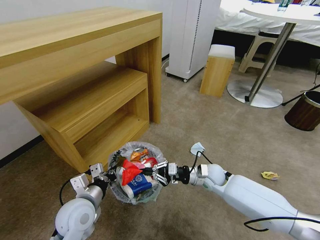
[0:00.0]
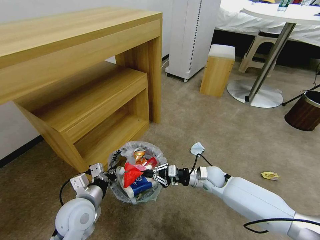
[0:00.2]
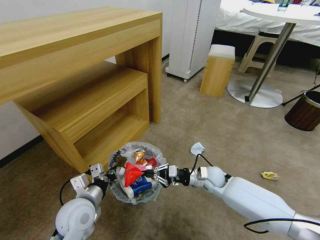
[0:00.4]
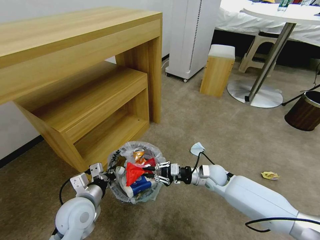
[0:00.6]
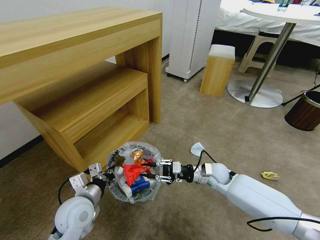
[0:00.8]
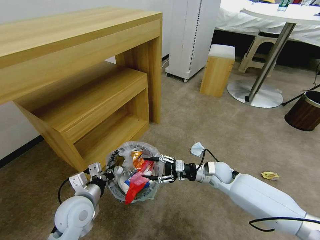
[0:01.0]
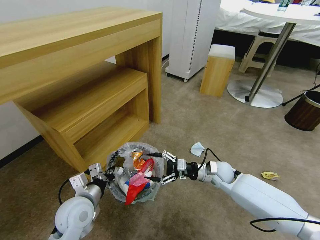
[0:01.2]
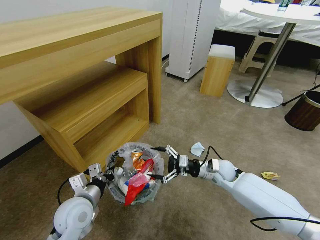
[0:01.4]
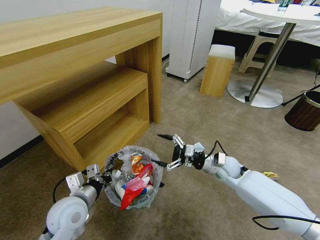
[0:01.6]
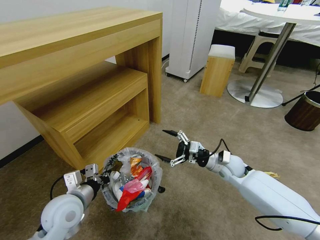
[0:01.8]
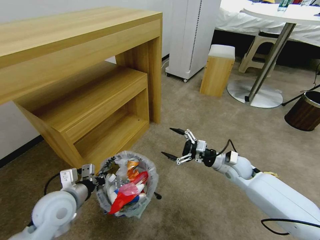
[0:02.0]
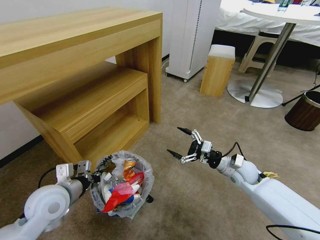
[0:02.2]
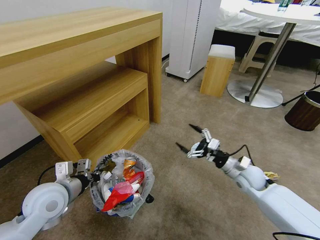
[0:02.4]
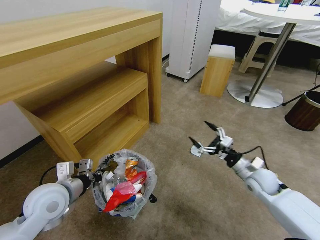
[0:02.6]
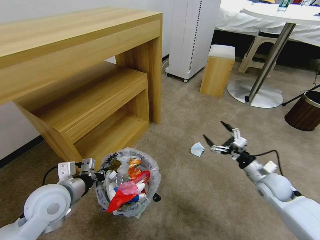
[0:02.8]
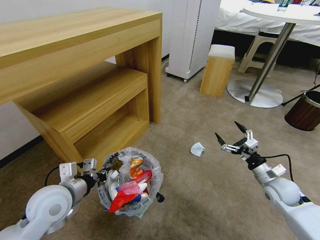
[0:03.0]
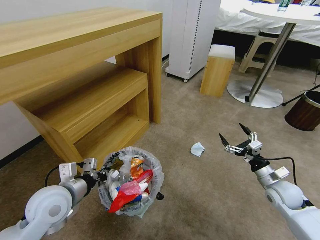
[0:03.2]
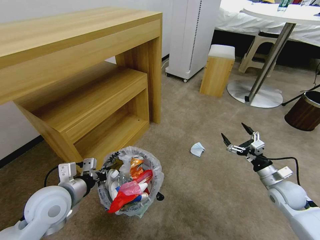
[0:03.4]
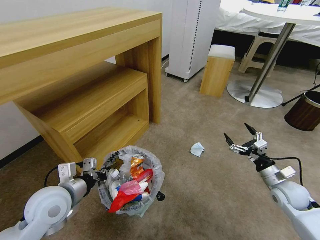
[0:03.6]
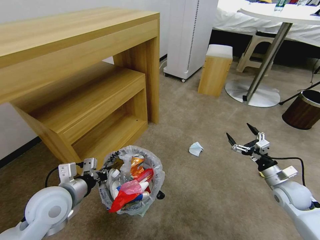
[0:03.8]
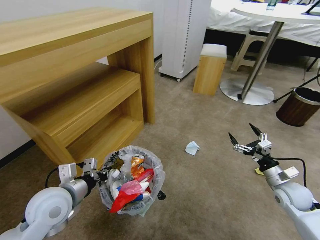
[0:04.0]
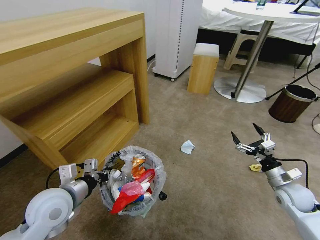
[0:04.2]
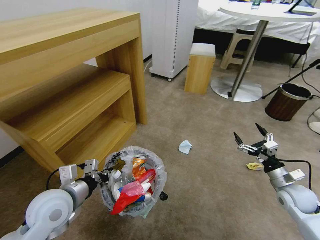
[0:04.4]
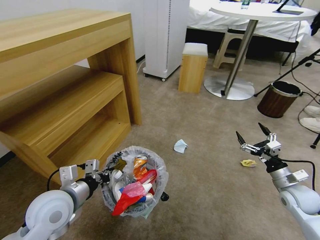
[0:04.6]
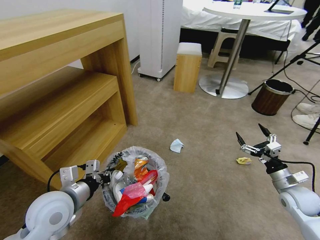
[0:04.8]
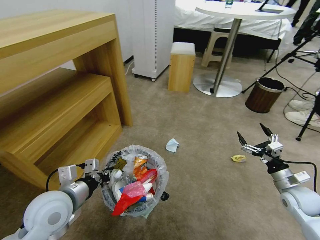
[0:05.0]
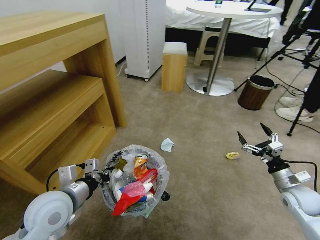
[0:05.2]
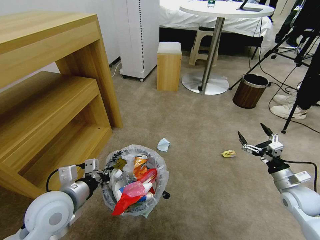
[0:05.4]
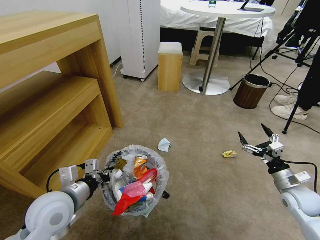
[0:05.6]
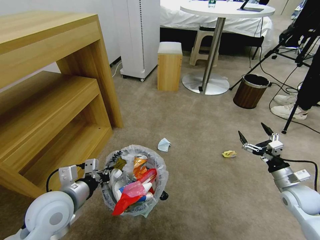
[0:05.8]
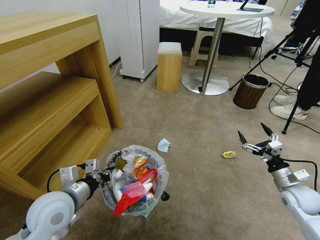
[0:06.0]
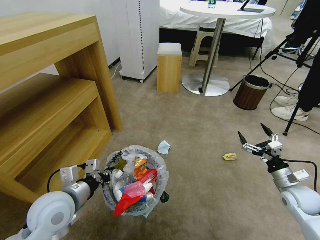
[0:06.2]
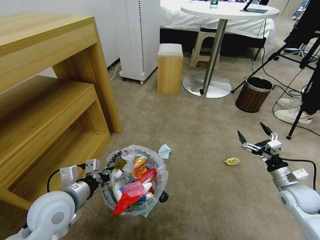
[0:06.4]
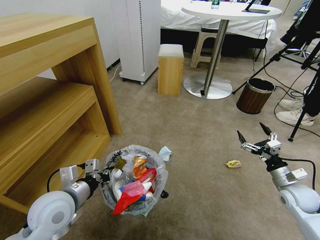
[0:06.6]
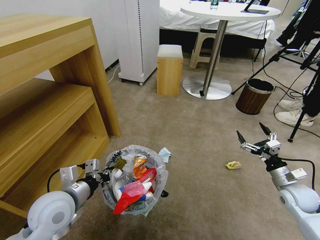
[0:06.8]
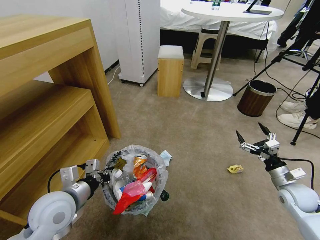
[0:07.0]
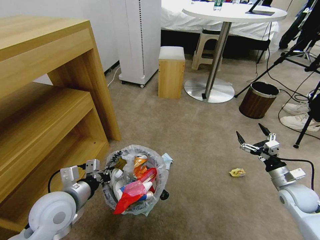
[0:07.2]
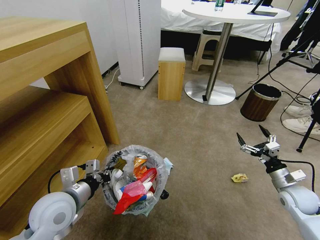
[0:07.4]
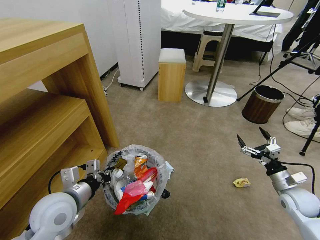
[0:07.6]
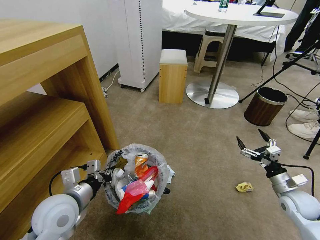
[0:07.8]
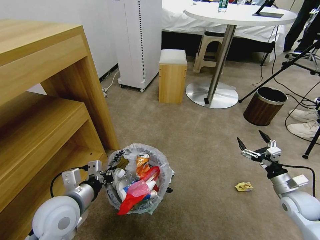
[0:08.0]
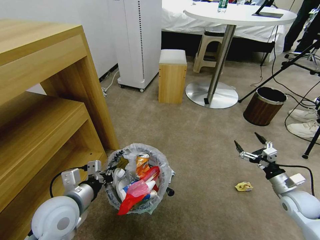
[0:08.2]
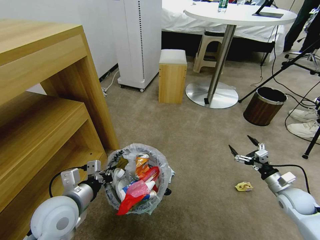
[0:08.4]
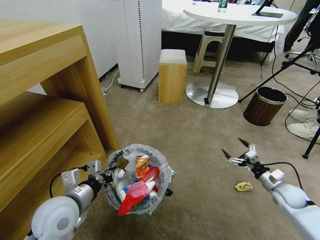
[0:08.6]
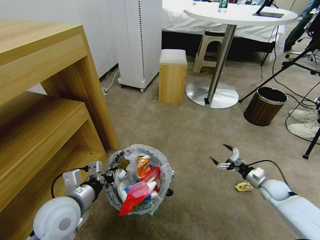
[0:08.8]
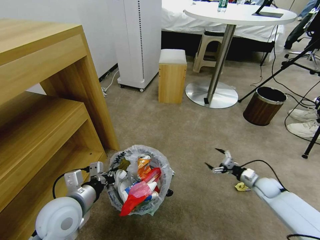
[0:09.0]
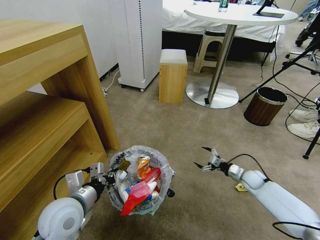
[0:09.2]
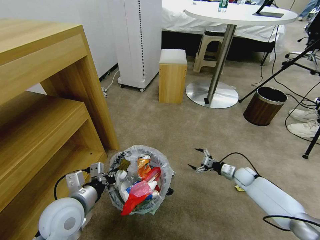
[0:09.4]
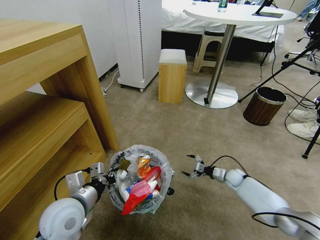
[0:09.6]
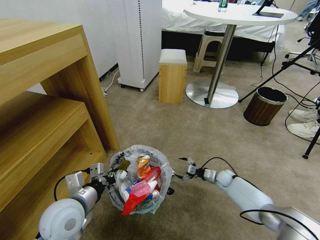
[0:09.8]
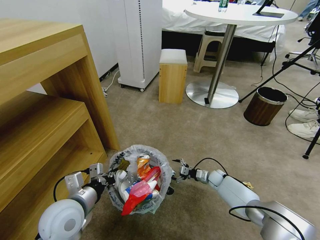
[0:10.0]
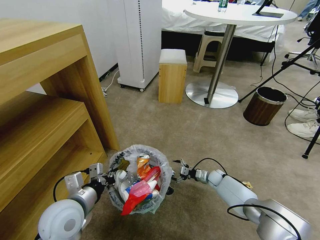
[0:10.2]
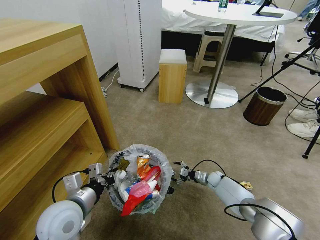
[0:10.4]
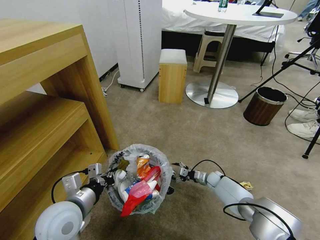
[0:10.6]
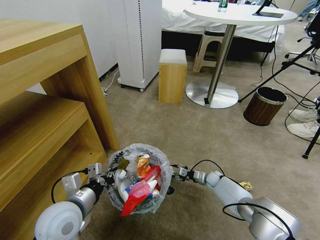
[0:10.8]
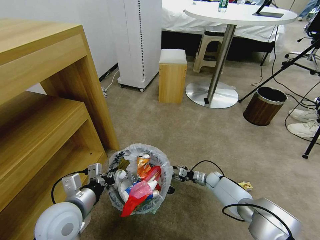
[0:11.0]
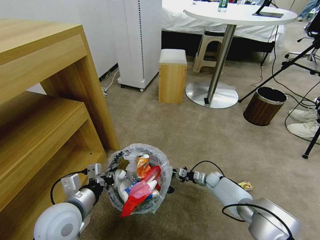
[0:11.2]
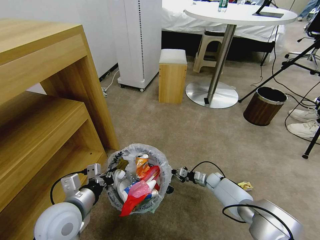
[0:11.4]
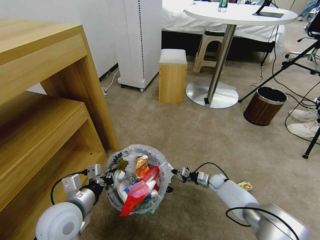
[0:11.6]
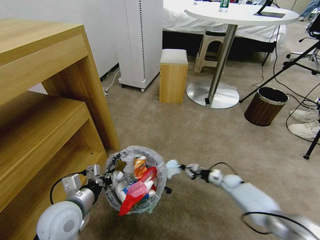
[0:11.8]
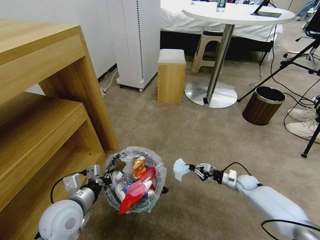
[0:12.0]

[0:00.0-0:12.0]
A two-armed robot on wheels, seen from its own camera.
Task of the whole recording: Pick up the trash bin and place the garbage on the floor into it.
0:00.0 to 0:01.6: The right gripper changes place by roughly 5 cm, and opens its fingers.
0:01.6 to 0:03.0: The right gripper is displaced to the right and backward by roughly 20 cm; the left gripper travels upward by about 5 cm.
0:07.6 to 0:09.0: The right gripper shifts roughly 15 cm downward and forward.
0:09.0 to 0:10.4: The right gripper travels to the left, downward and forward by about 20 cm.
0:10.4 to 0:12.0: The right gripper is displaced to the right, upward and backward by some 15 cm, and closes.

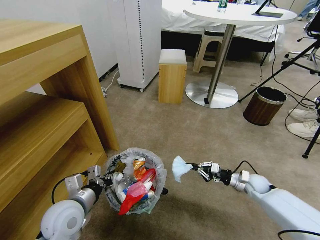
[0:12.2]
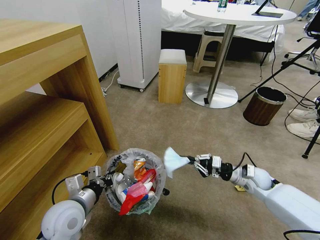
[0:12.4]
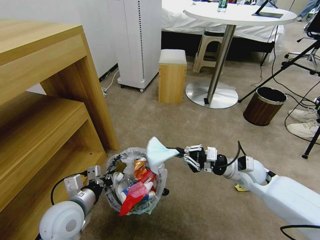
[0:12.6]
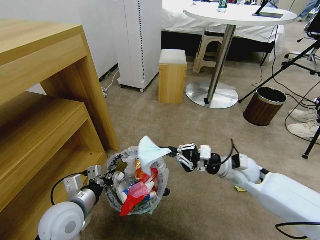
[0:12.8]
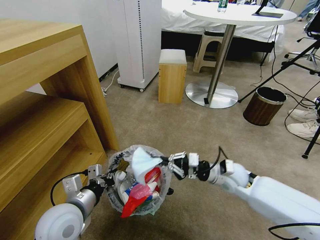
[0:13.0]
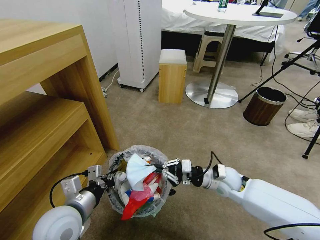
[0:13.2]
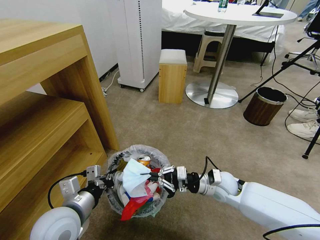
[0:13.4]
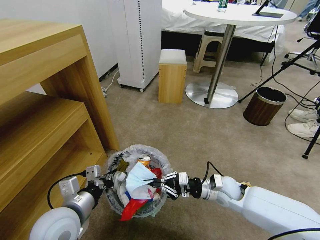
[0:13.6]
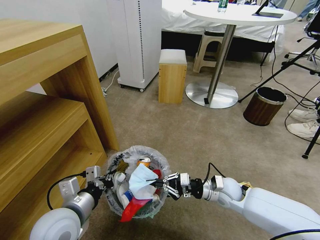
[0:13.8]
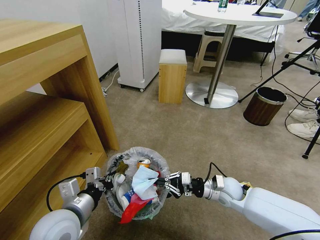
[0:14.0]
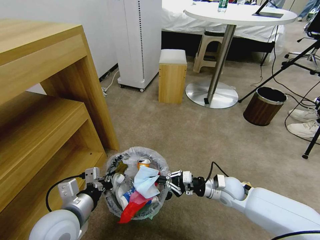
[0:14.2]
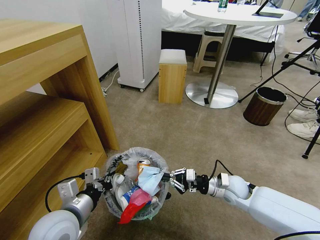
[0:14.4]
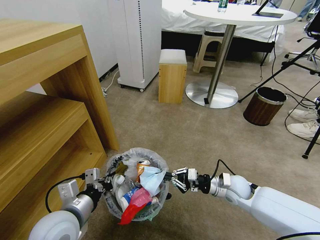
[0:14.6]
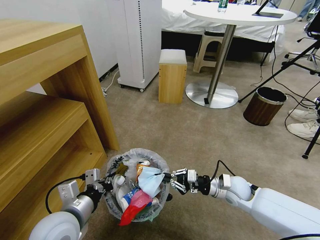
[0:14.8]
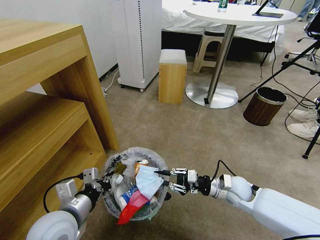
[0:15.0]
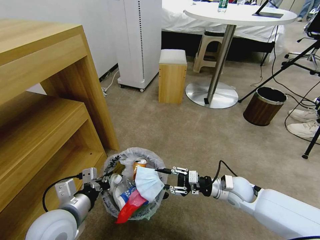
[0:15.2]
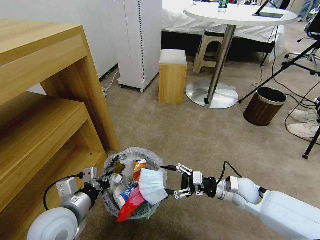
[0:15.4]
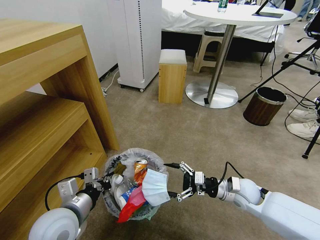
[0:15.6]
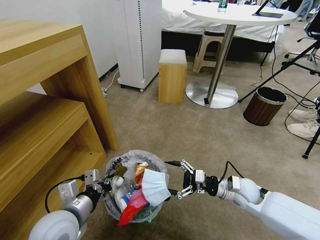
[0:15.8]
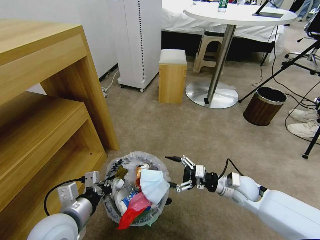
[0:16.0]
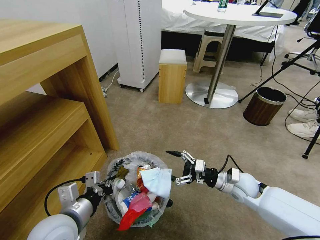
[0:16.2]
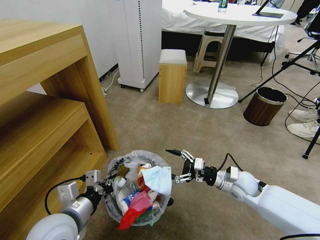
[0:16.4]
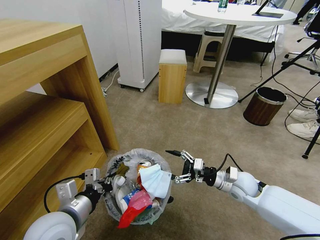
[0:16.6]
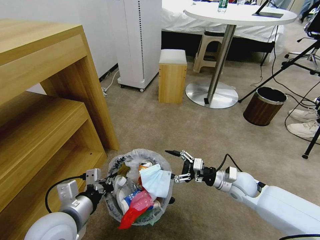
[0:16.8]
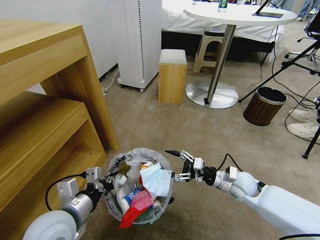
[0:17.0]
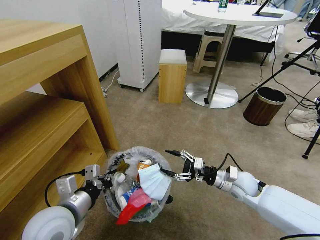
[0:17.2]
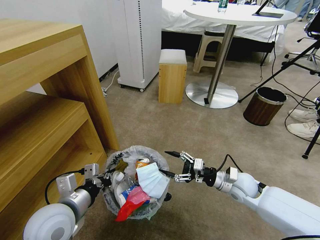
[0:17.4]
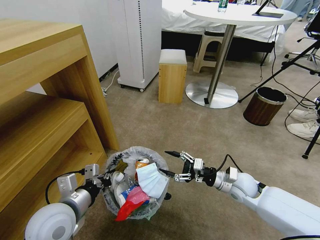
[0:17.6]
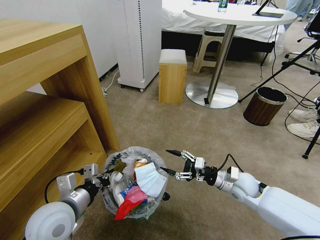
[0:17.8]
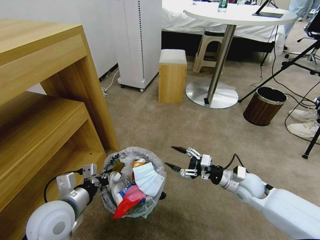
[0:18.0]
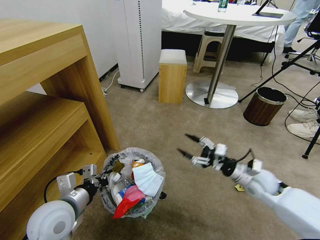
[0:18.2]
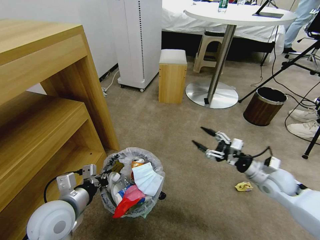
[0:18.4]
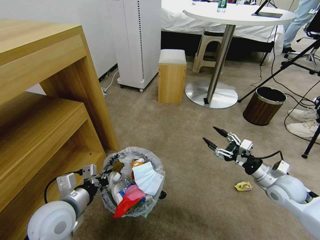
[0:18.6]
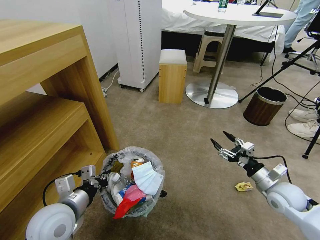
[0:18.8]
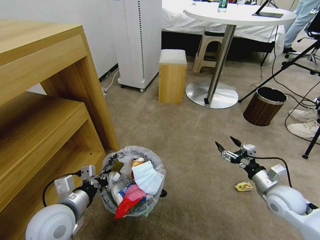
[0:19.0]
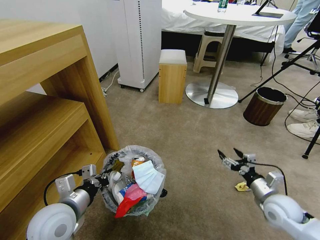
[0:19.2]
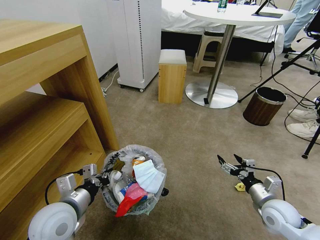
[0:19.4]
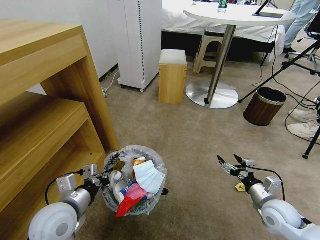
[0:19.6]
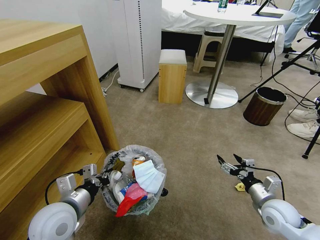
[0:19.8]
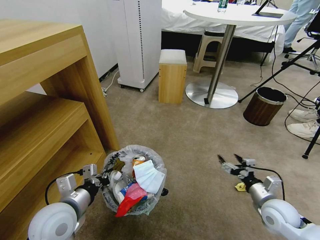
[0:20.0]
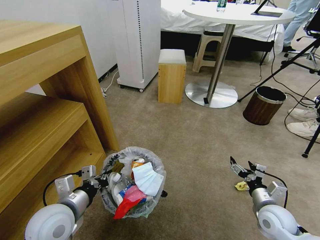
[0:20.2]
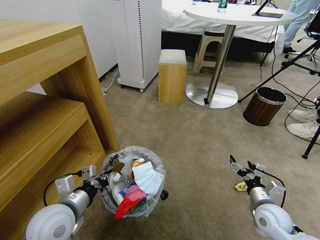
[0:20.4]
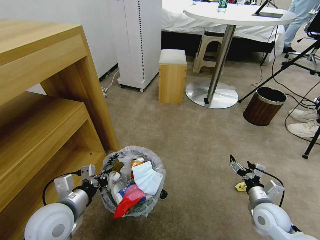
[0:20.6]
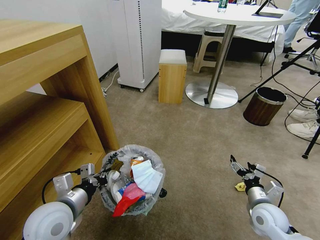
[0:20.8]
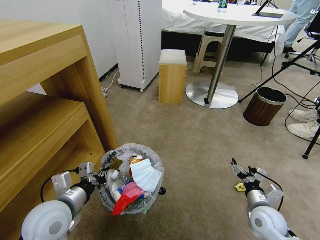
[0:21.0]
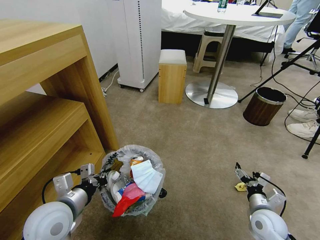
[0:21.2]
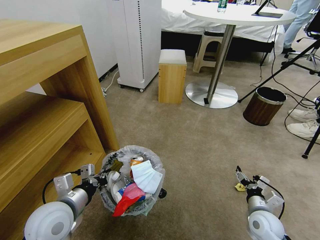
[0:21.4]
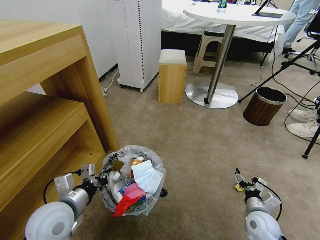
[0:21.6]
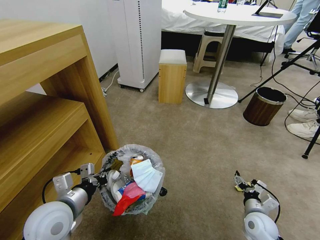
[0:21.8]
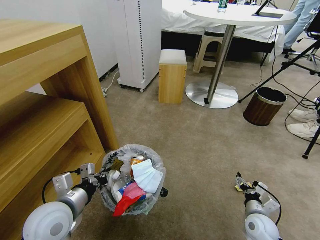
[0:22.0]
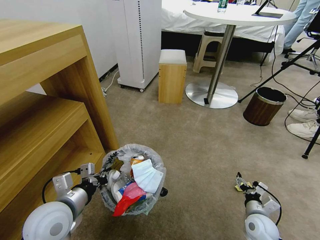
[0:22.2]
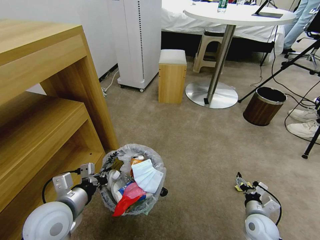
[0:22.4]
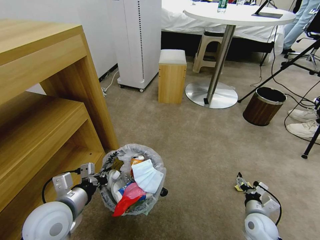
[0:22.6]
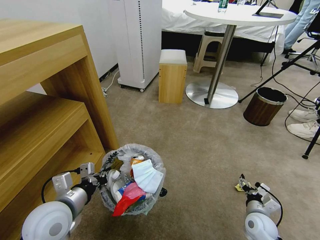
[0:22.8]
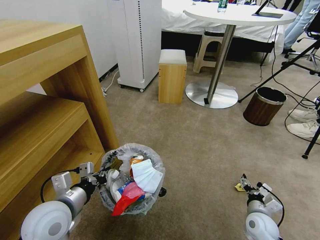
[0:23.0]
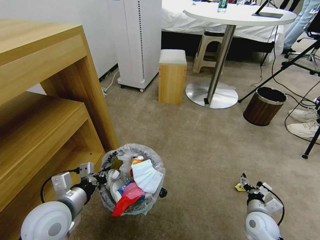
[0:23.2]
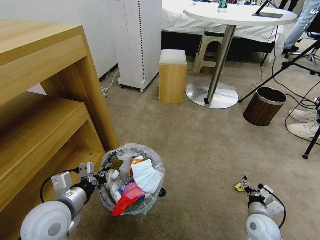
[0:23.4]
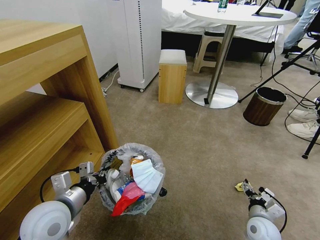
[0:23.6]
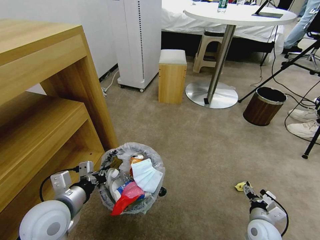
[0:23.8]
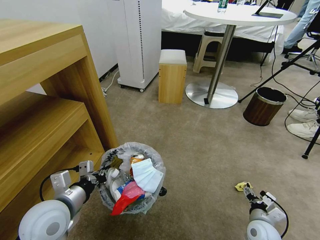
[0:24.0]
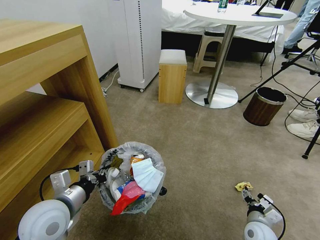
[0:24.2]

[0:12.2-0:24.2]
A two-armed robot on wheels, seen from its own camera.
Task of the whole recording: Pick up the trash bin and place the garbage on the floor into it.
0:12.2 to 0:13.8: The right gripper heads to the left and upward, covering roughly 15 cm, while the left gripper ends up about 5 cm from where it was.
0:13.8 to 0:15.2: The right gripper opens.
0:15.2 to 0:16.6: The grippers move only a little.
0:16.6 to 0:18.2: The right gripper changes place by approximately 5 cm.
0:18.2 to 0:19.8: The right gripper moves backward, approximately 10 cm.
0:19.8 to 0:21.2: The right gripper shifts by roughly 5 cm.
0:21.2 to 0:22.6: The right gripper shifts about 5 cm downward.
0:22.6 to 0:24.2: The grippers stay close to where they were, moving slightly.
